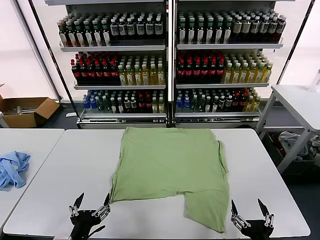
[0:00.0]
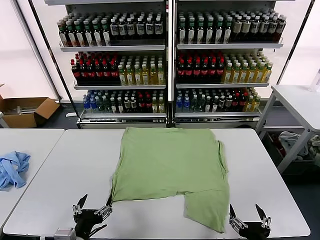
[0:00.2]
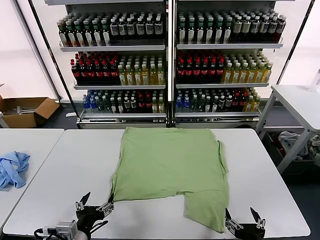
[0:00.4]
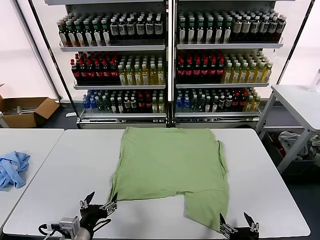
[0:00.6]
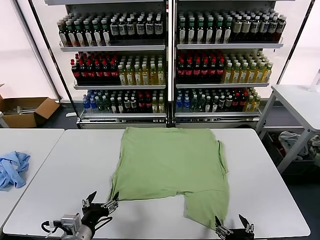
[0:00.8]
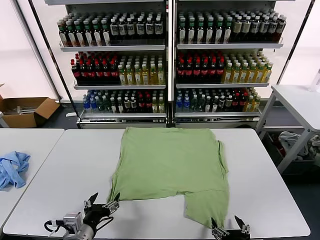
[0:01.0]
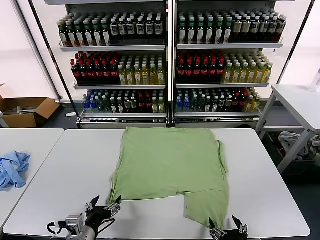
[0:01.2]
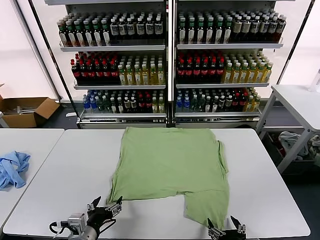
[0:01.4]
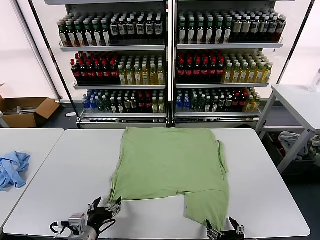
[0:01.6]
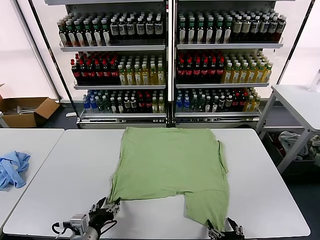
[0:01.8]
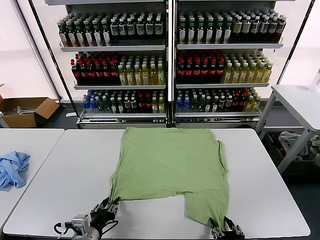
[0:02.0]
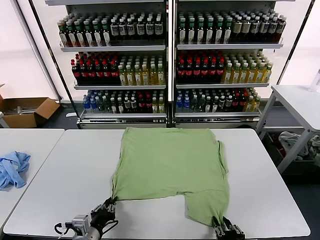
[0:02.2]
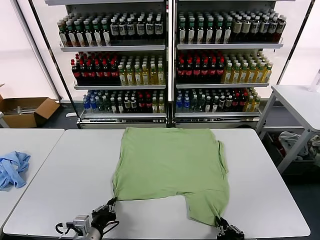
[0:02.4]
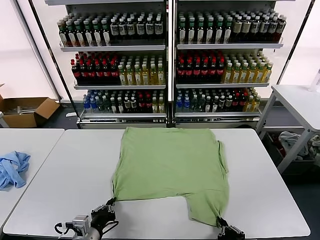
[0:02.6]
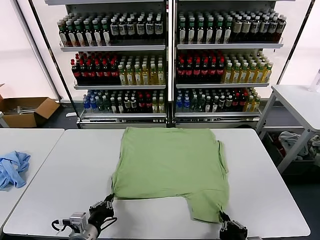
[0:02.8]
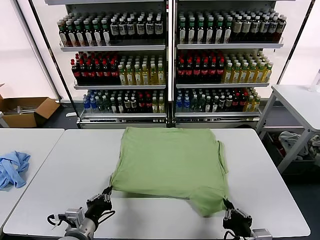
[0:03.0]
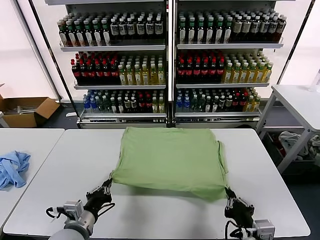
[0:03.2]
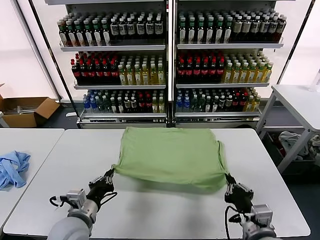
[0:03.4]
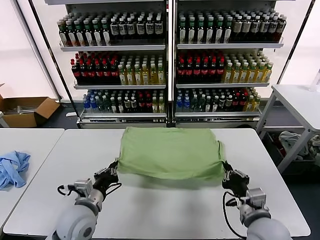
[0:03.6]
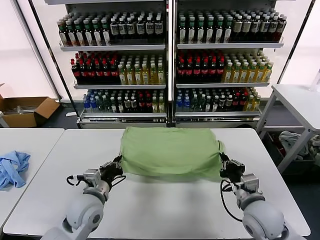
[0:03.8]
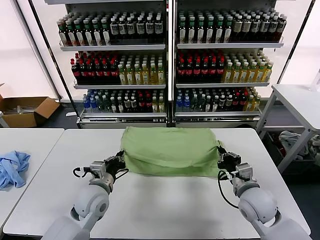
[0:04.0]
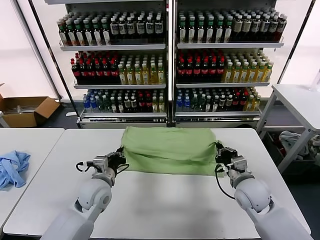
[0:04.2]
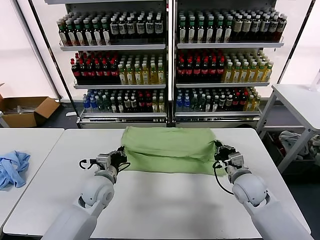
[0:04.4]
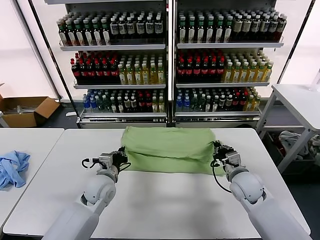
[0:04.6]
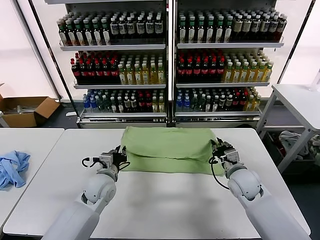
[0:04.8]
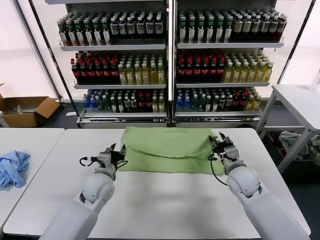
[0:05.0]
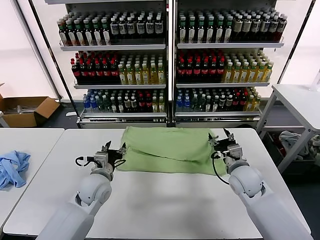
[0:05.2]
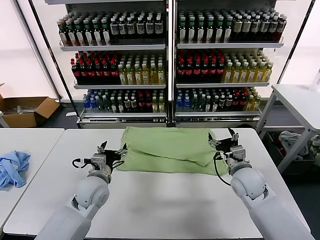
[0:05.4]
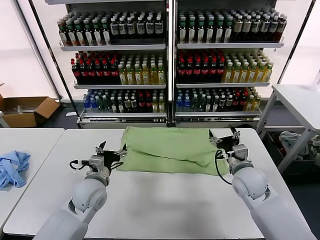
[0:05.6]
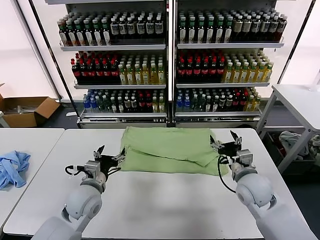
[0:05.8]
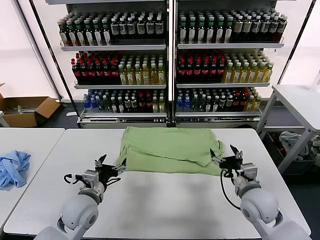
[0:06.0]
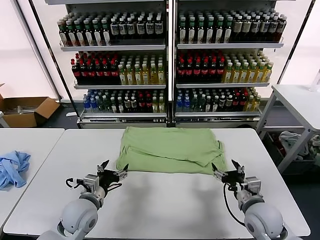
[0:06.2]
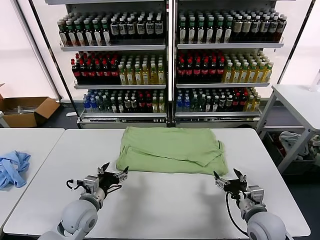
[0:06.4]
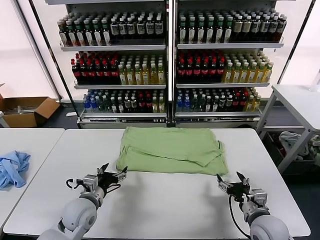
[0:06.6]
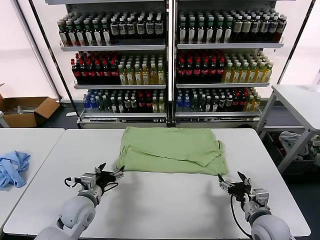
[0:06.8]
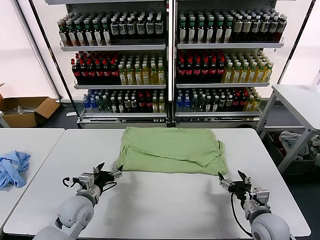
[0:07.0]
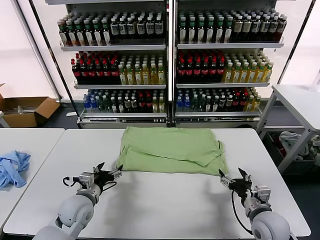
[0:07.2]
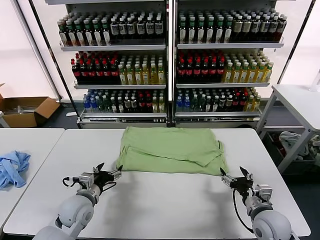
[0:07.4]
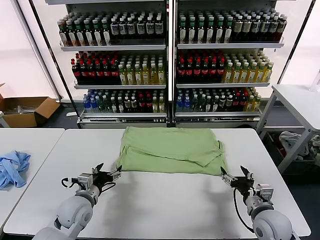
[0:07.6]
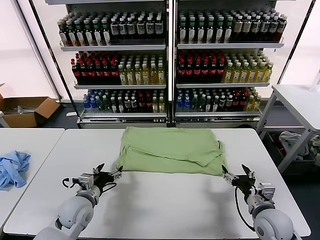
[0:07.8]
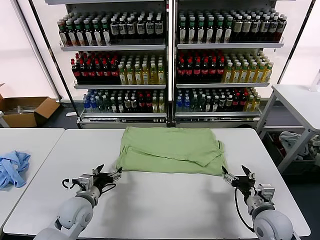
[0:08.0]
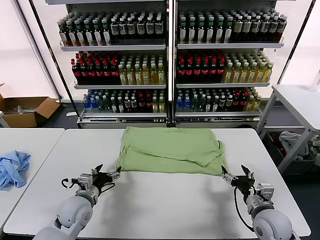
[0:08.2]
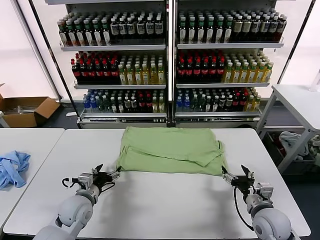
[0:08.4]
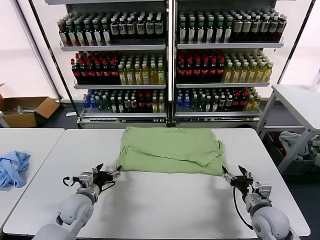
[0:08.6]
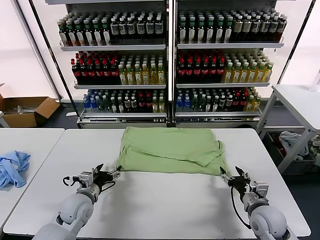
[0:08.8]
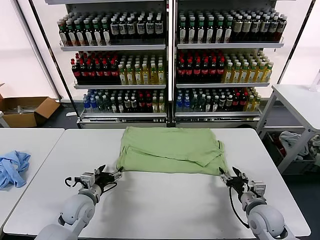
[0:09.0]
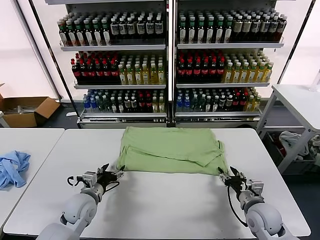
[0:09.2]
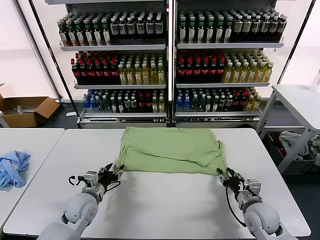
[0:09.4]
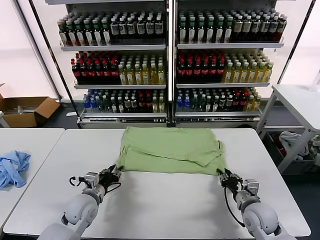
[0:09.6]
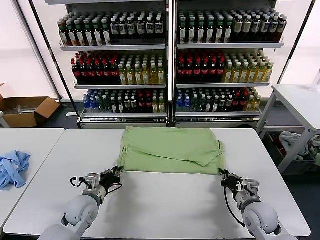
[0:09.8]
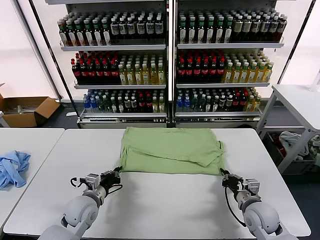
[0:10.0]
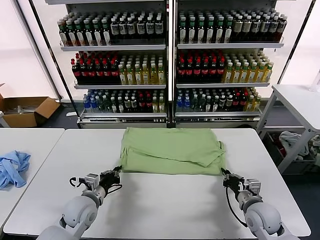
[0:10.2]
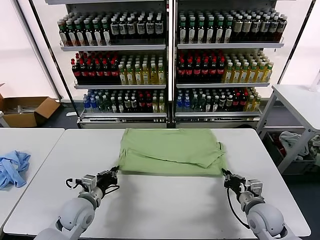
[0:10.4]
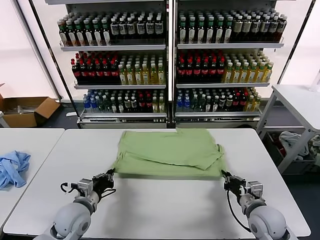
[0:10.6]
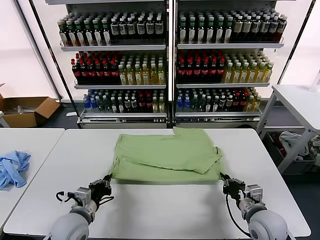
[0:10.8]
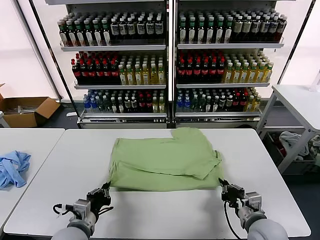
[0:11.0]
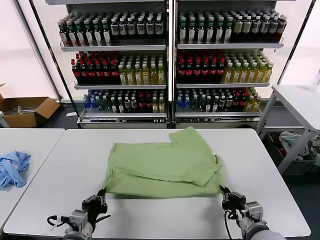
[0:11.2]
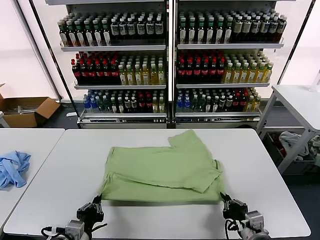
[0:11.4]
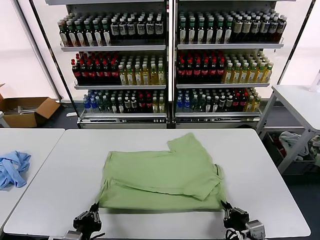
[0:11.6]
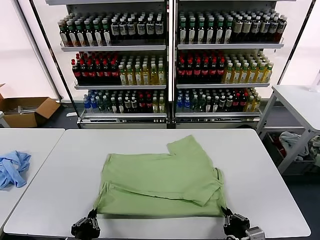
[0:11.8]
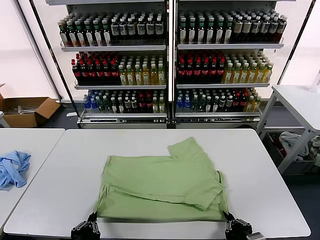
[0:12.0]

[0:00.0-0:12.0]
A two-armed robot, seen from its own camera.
Task of the whole recording: fold and organize the clothes.
Step, 0:00.0 to 0:02.4: use both grippers simultaneously to clamp the lower edge of the clothing fabric.
Step, 0:02.8 to 0:05.2: use both grippers to drag the lower edge of the fabric forward and fold it over the upper edge.
0:01.6 to 0:03.0: The left gripper closes its fingers. The right gripper moves approximately 5 cm, and closes.
0:03.0 to 0:04.4: Both grippers travel together forward, approximately 20 cm.
0:04.4 to 0:06.0: The grippers both shift backward by some 10 cm. The right gripper opens its fingers. The left gripper opens its fingers.
0:06.0 to 0:07.6: The left gripper ends up approximately 5 cm from where it was.
0:07.6 to 0:09.0: There are only small adjustments of the grippers.
0:09.0 to 0:10.4: The left gripper closes. Meanwhile the right gripper closes up.
0:10.4 to 0:12.0: Both grippers move backward, roughly 20 cm.

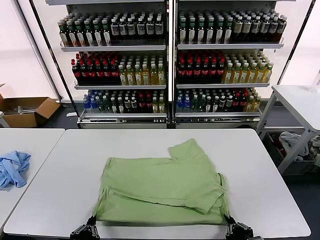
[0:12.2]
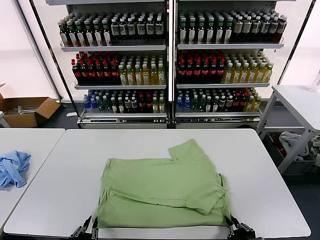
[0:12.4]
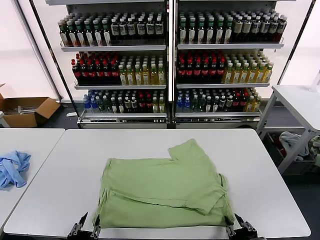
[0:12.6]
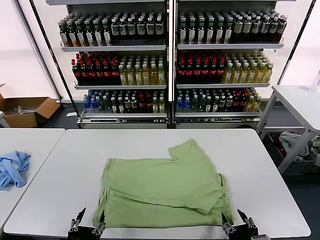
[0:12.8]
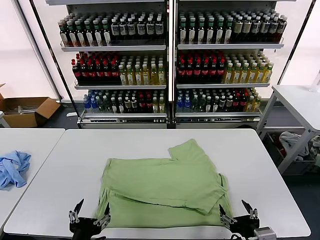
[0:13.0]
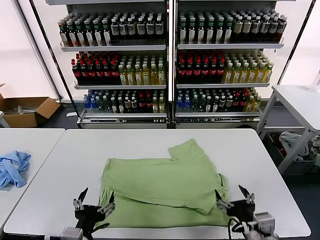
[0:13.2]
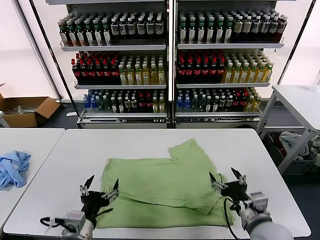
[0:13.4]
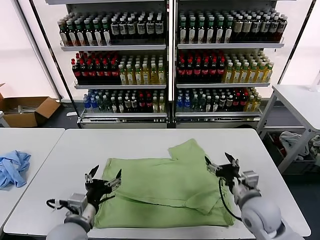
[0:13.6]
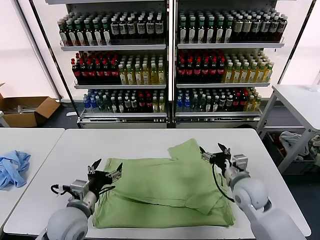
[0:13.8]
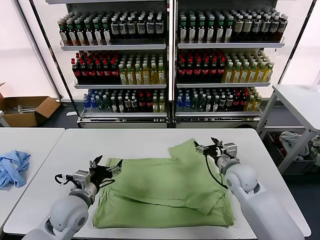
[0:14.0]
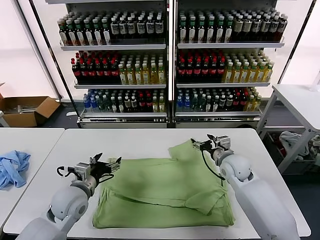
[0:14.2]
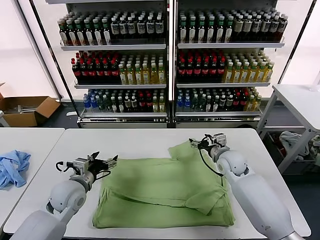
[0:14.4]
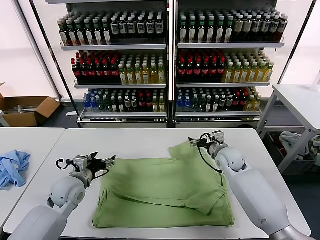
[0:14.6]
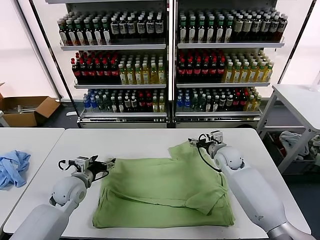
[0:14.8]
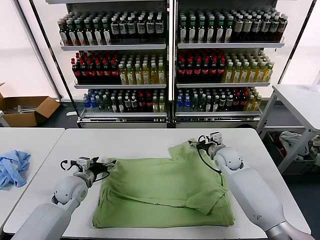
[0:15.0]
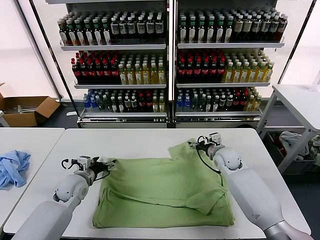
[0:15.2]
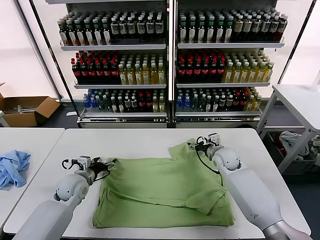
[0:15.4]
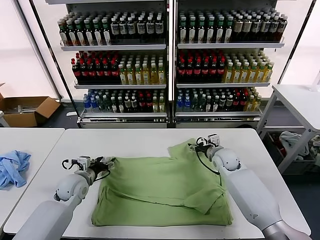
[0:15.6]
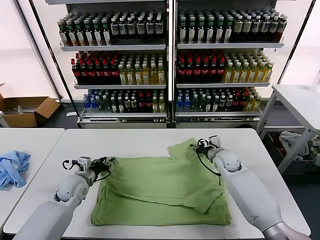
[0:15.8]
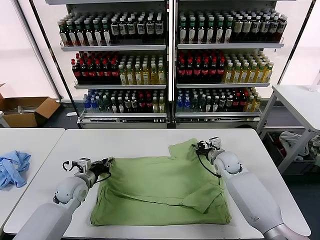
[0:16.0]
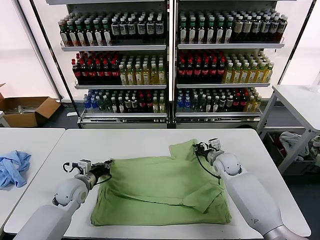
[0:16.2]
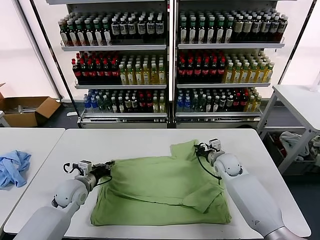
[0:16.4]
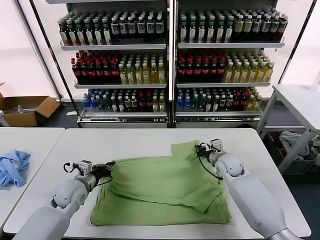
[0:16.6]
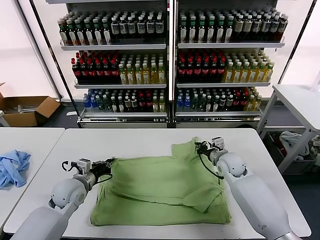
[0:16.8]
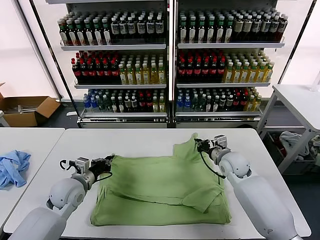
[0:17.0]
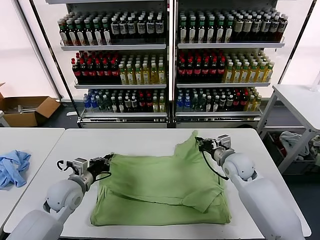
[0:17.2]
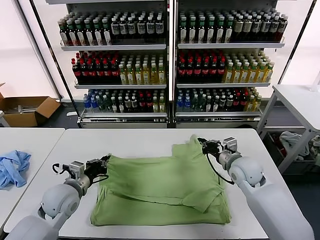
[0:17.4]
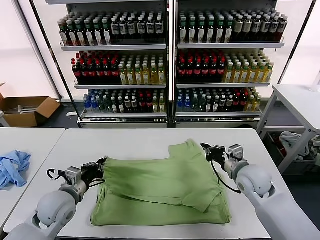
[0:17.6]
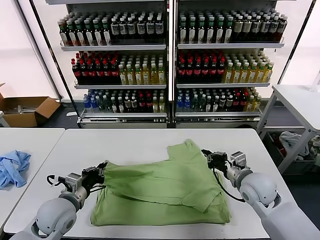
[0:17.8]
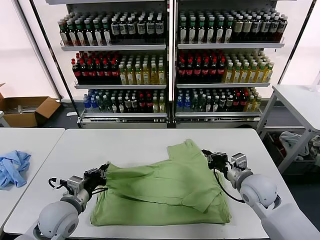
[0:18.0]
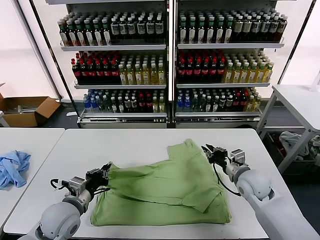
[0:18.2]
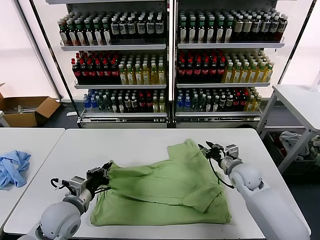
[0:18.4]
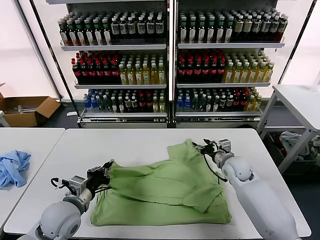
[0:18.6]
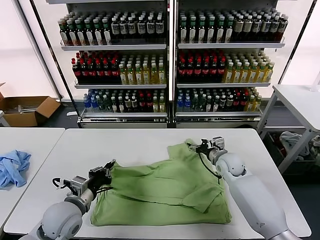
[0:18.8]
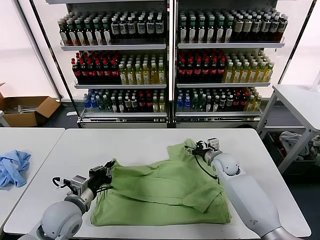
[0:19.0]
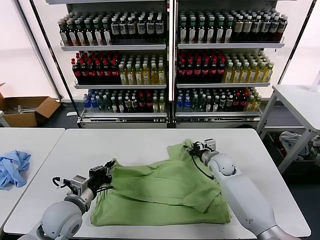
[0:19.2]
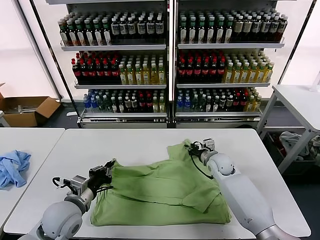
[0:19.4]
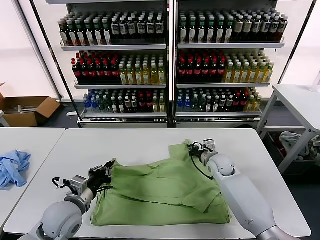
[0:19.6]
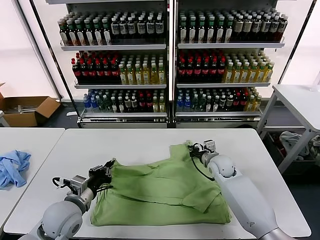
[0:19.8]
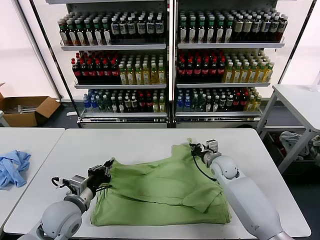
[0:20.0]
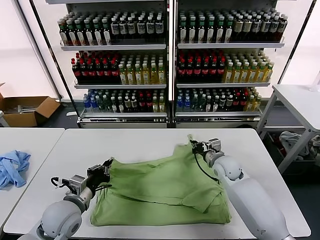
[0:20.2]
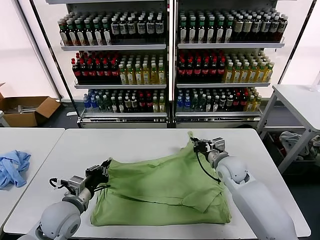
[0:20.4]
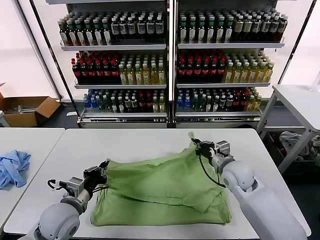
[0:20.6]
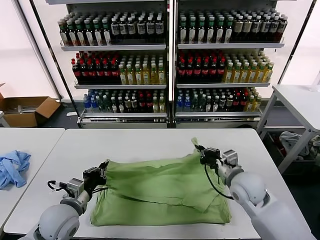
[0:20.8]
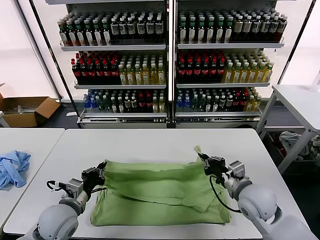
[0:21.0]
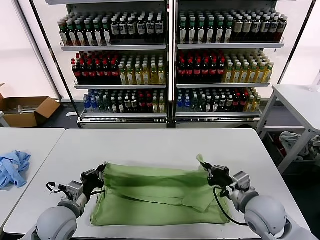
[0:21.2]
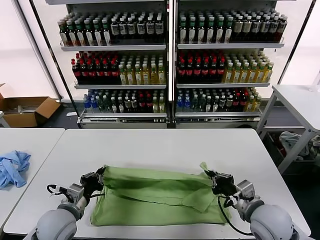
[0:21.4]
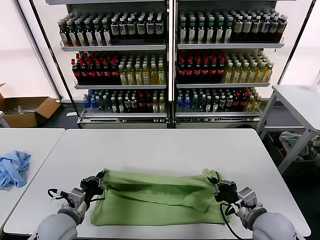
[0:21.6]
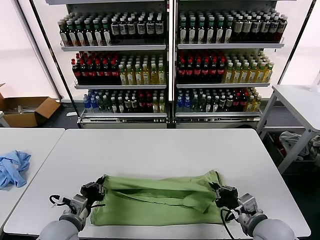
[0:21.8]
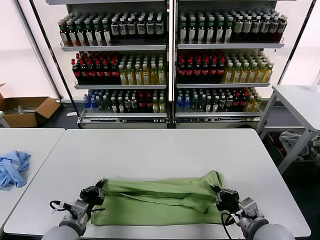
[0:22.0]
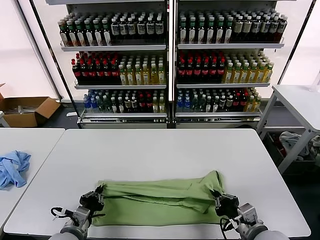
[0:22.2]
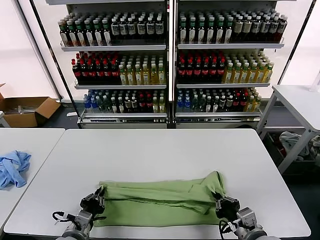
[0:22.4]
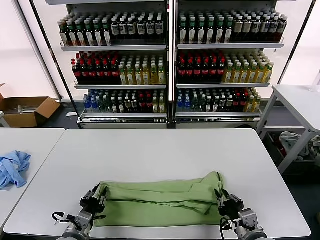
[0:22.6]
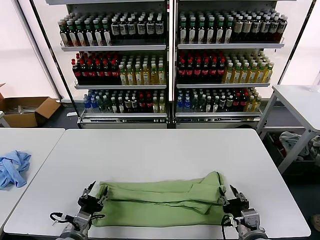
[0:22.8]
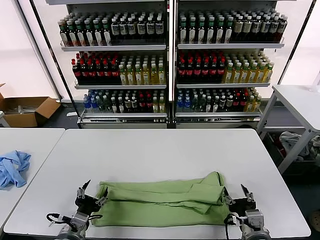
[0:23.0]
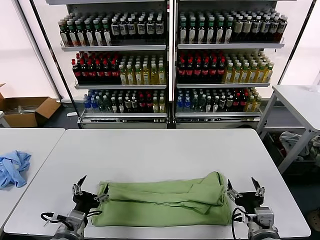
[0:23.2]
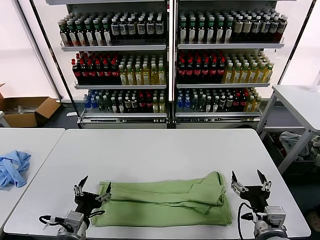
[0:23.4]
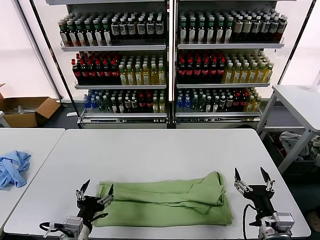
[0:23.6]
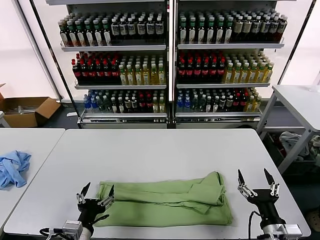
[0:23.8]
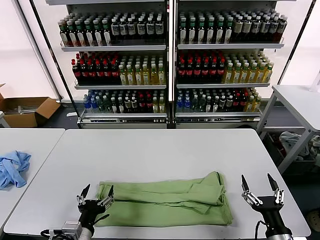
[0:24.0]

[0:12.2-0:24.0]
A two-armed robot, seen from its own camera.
Task of the whole recording: fold and organize the clothes.
Step, 0:12.8 to 0:16.4: use both grippers simultaneously to clamp the upper edge of the clothing fabric.
Step, 0:16.6 to 0:22.6: use both grippers to drag the upper edge of the fabric backward and fold it over the lower edge.
0:12.2 to 0:13.6: The left gripper moves forward, some 10 cm, and opens its fingers, while the right gripper is displaced forward by roughly 20 cm, and opens up.
0:13.6 to 0:15.2: The right gripper shifts roughly 20 cm forward. Meanwhile the left gripper is displaced forward and to the left by about 20 cm.
0:15.2 to 0:16.6: The right gripper closes. The left gripper closes up.
0:16.6 to 0:18.2: Both grippers move backward, some 10 cm.
0:18.2 to 0:19.6: The right gripper shifts approximately 10 cm forward and to the left, and opens, then closes once more.
0:19.6 to 0:21.0: The right gripper goes approximately 20 cm backward and upward.
0:21.0 to 0:22.6: The grippers both shift backward and downward by approximately 10 cm.
0:22.6 to 0:24.0: The right gripper heads to the right, covering roughly 5 cm, and opens up. The left gripper opens its fingers.
